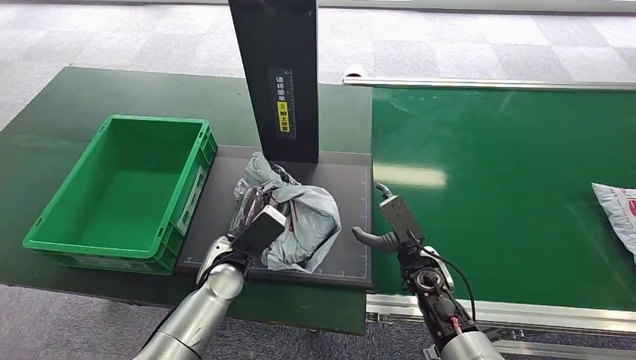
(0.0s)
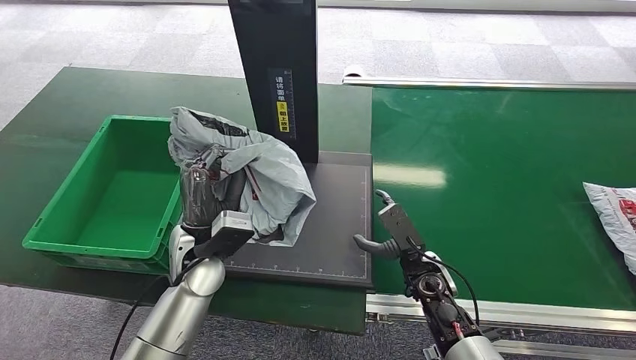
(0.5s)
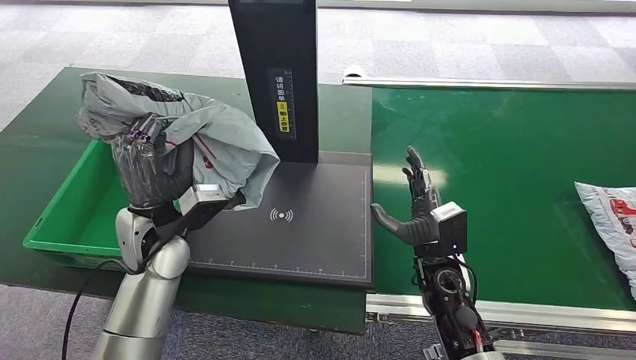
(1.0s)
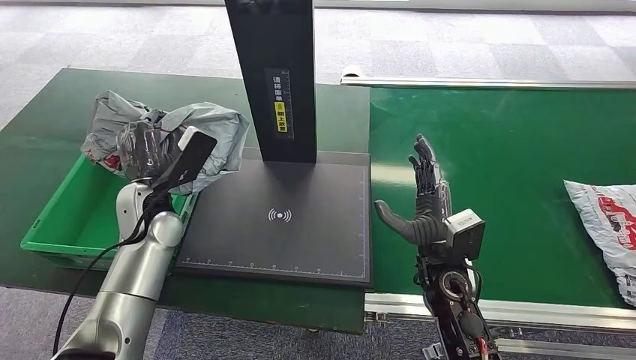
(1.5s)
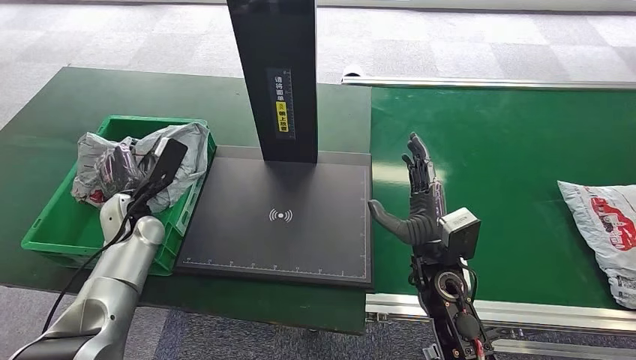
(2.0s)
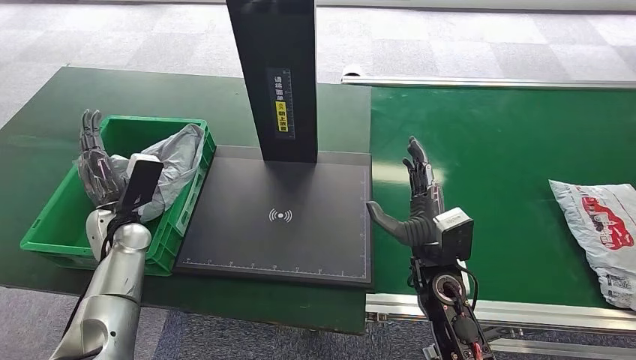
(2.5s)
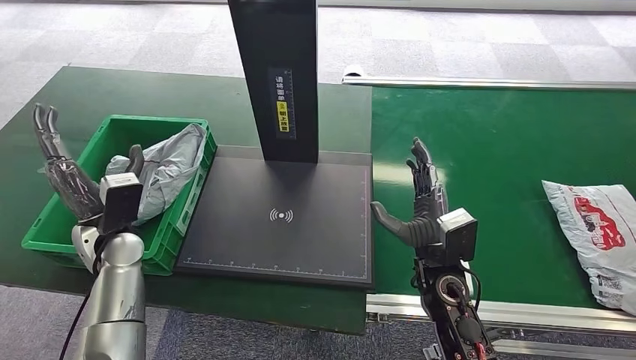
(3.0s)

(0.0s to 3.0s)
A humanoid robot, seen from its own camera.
Step, 1.5s - 3.0s: Place the package into the parcel locker.
1.5s - 3.0s: The left hand moves about 5 cm.

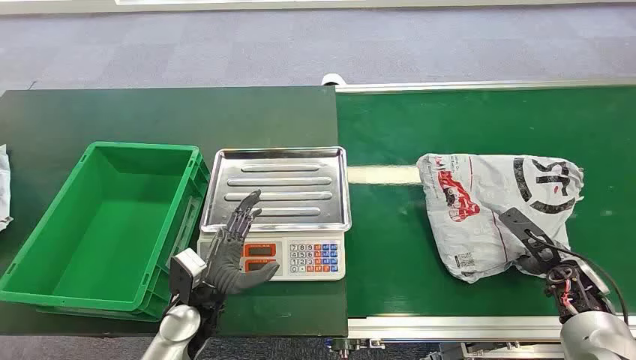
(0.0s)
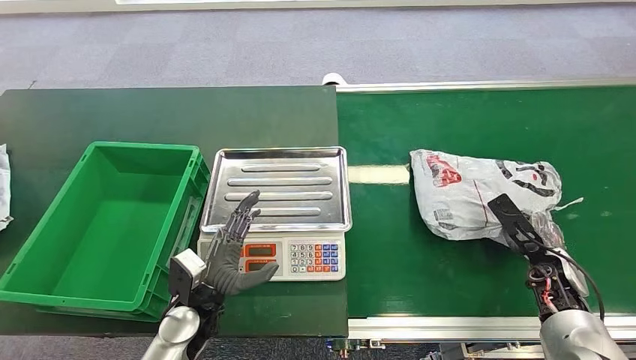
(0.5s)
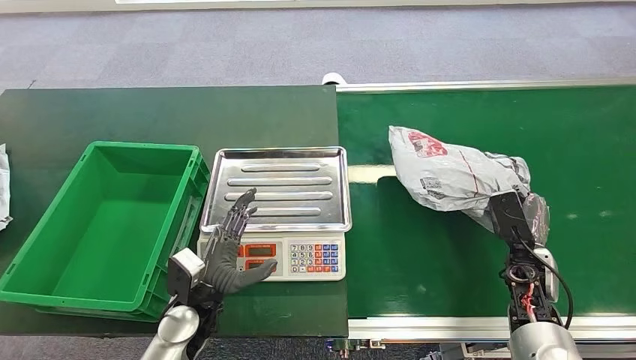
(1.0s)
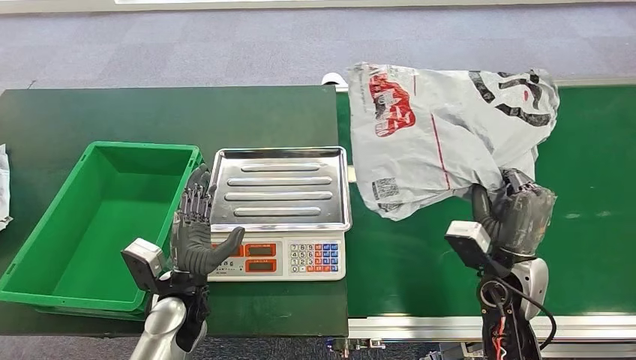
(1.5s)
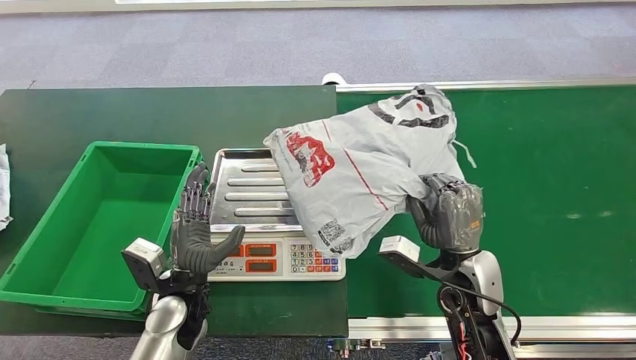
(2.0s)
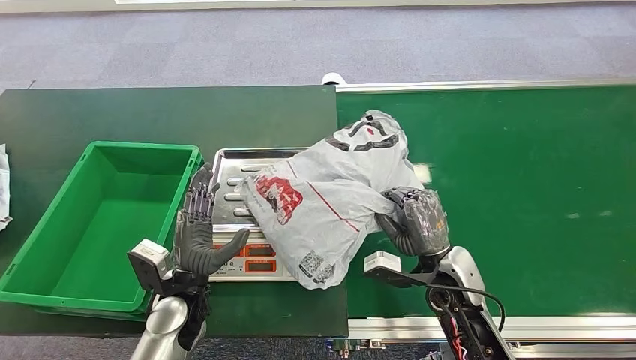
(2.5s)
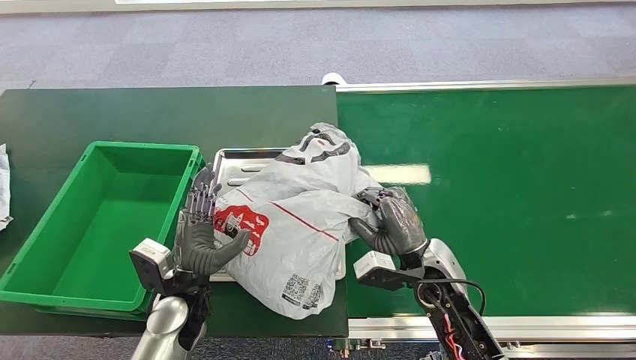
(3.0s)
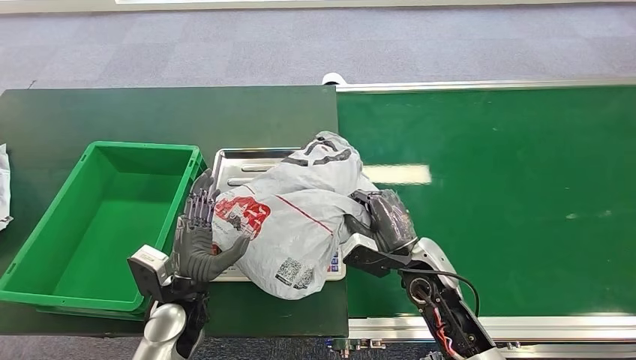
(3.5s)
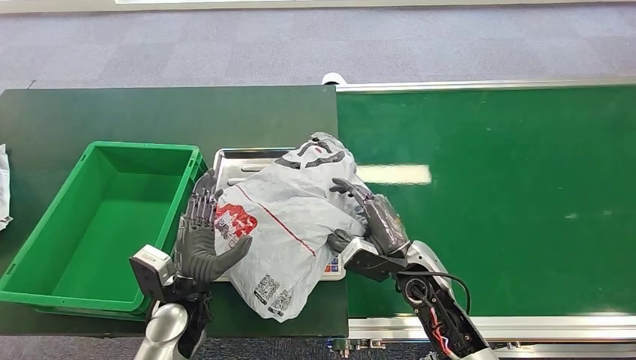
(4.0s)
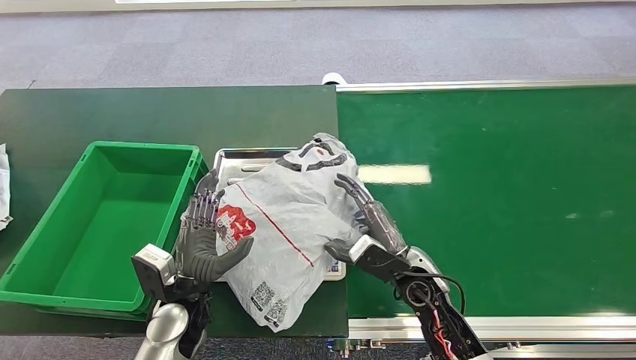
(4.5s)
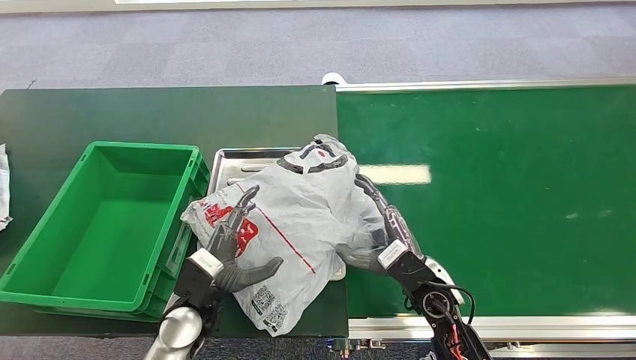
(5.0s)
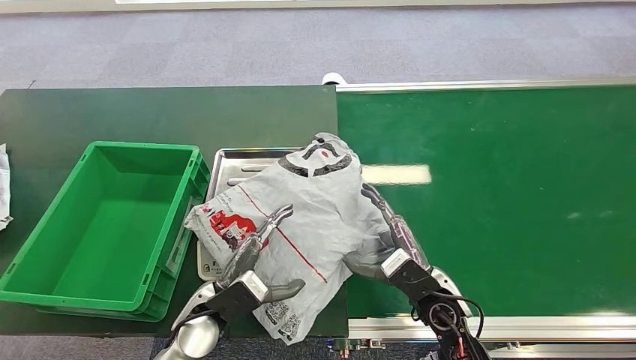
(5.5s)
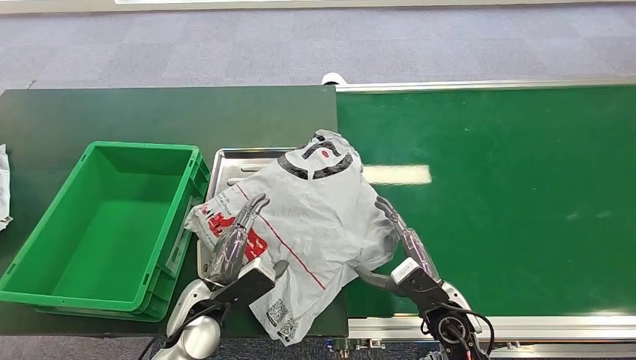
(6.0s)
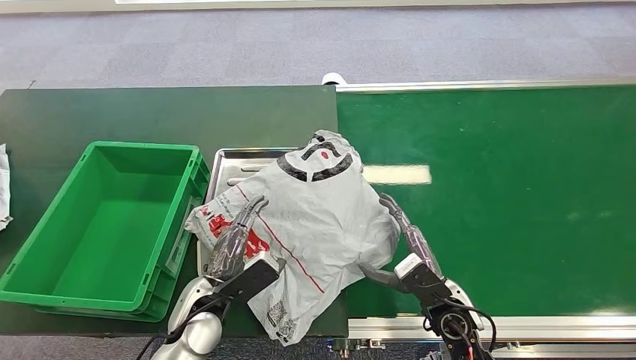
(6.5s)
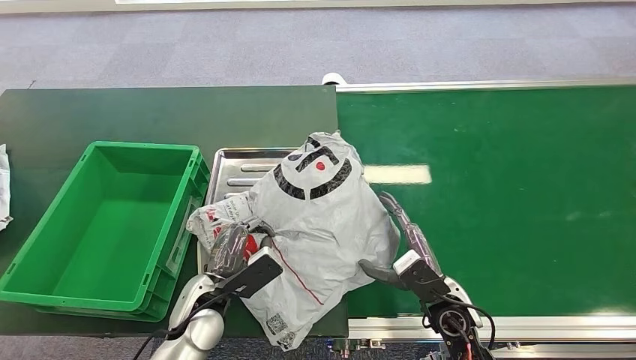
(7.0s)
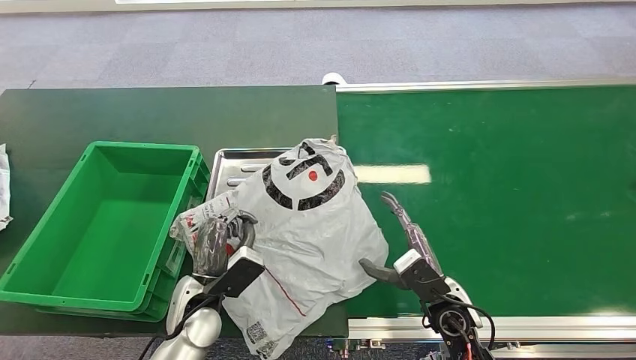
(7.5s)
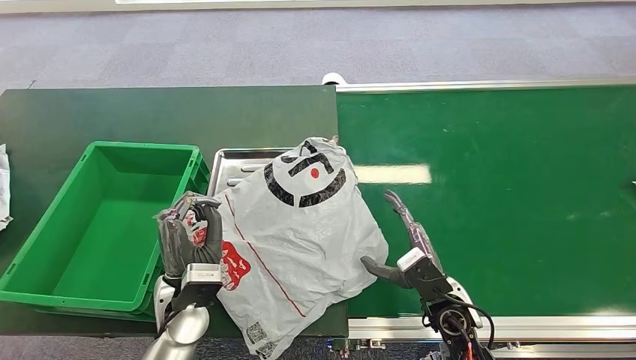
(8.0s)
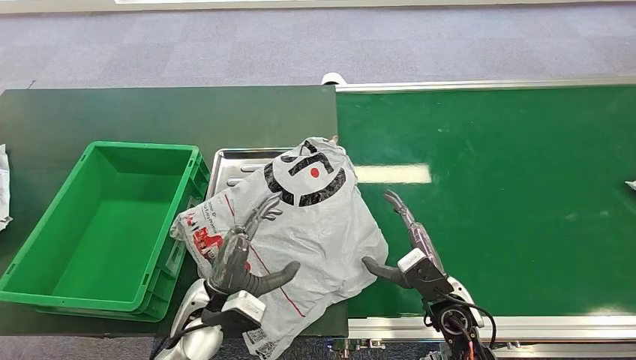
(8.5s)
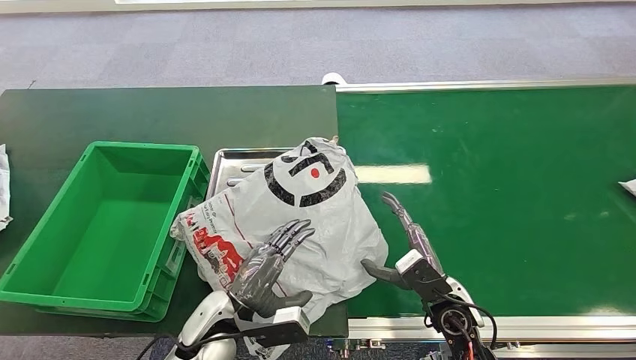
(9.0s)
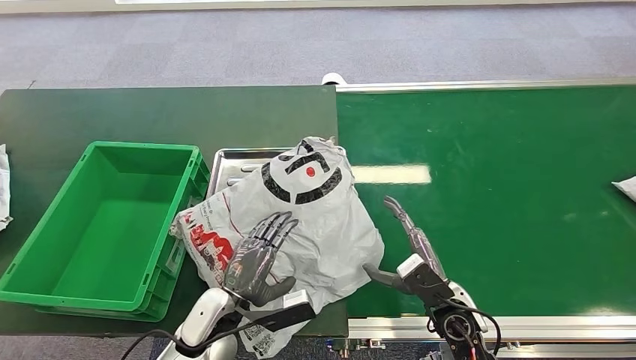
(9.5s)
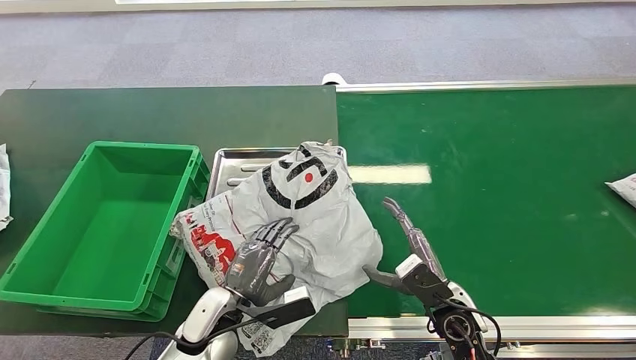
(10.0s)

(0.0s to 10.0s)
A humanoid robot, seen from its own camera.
Step, 0.0s - 1.0s: Pick up the package from the conveyor belt.
Step, 2.5s - 4.0s: Place the package onto the inbound machine.
4.0s - 6.0s: The right hand moves backward, about 5 cm.
8.0s - 10.0s: The left hand ends up some 5 cm from where it was.

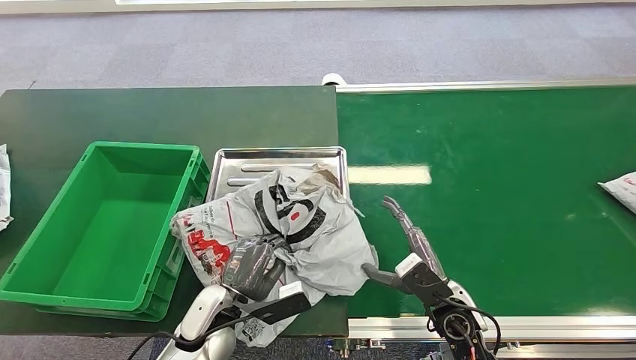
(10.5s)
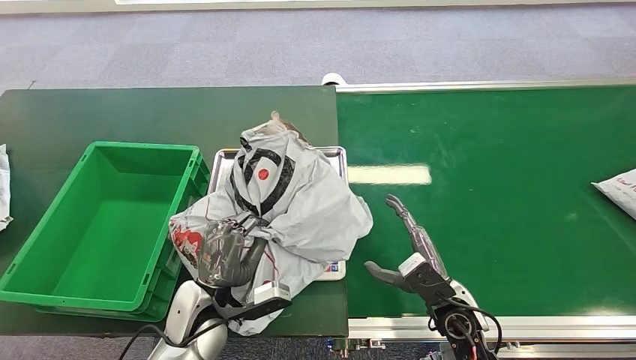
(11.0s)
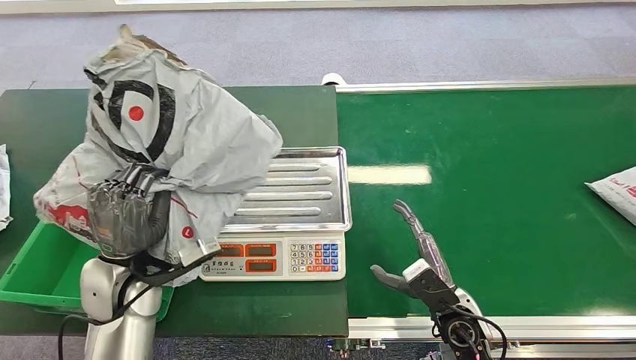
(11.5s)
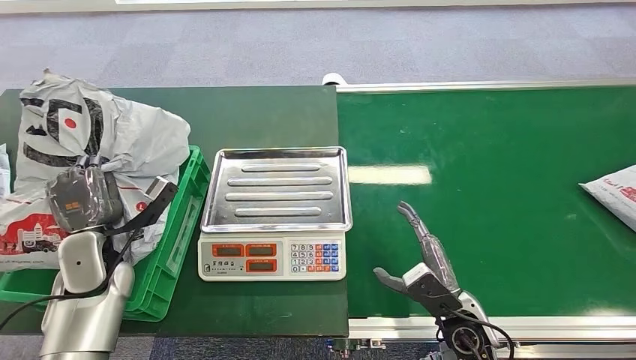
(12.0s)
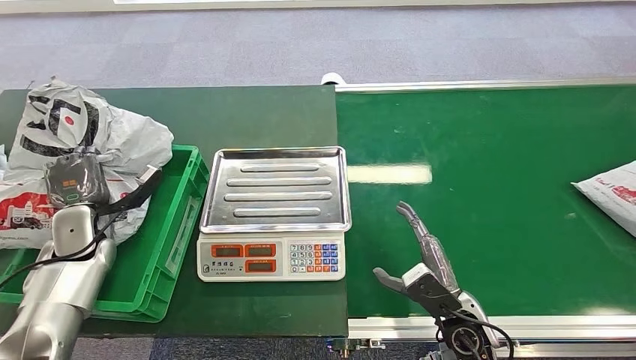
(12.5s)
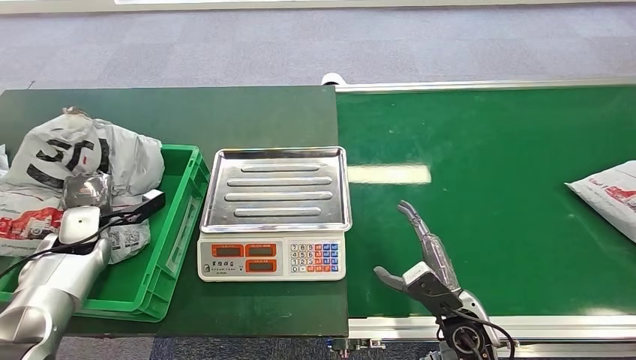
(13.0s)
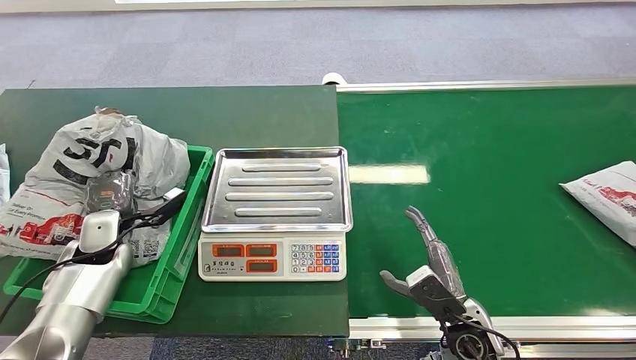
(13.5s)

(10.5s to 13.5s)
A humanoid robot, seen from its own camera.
Step, 10.5s - 11.0s: Pick up the package from the inbound machine.
Step, 12.0s - 13.5s: Place the package into the parcel locker.
